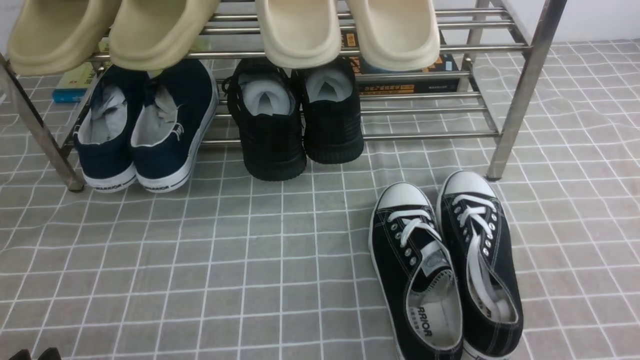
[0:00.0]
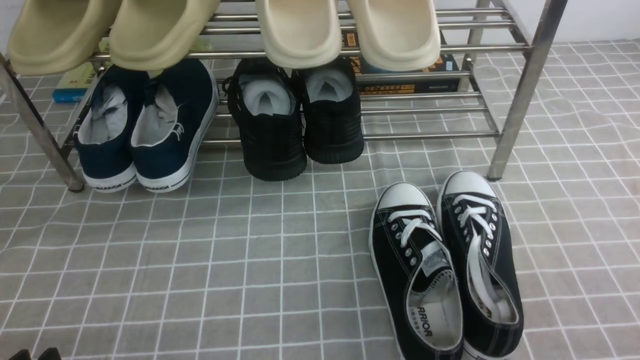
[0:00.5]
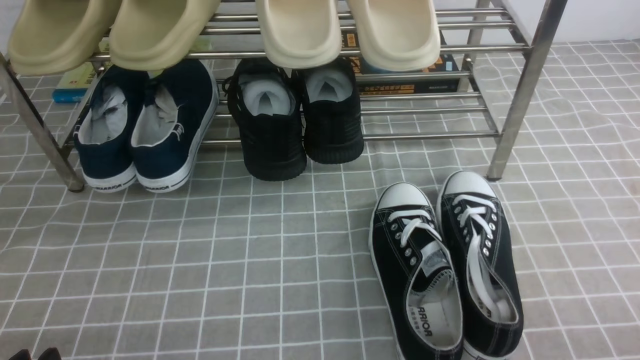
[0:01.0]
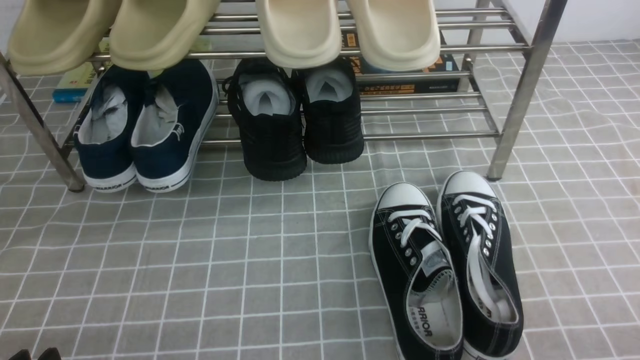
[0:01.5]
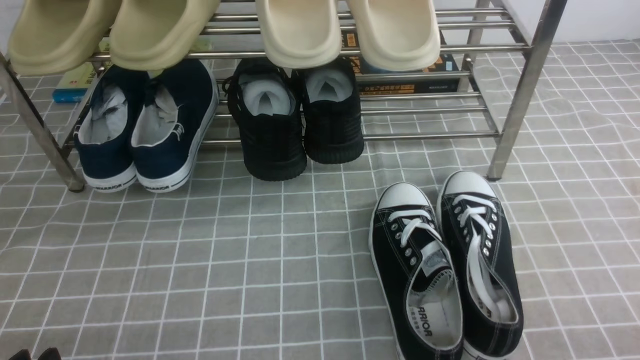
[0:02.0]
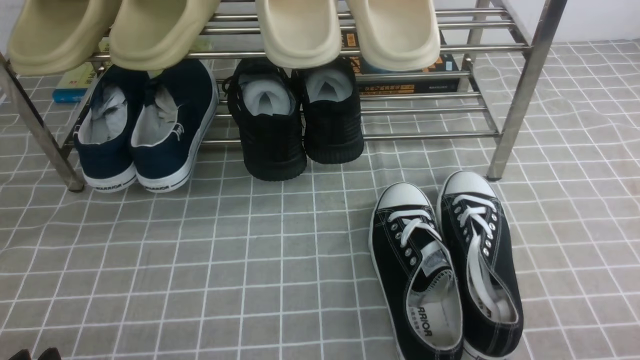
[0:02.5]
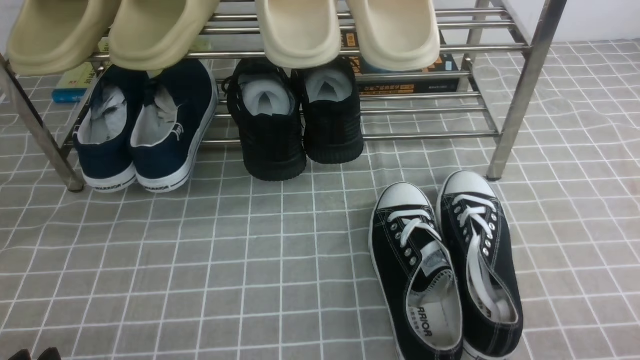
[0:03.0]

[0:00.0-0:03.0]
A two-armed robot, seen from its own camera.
0:01.5 to 0:03.0: Neither gripper changes place.

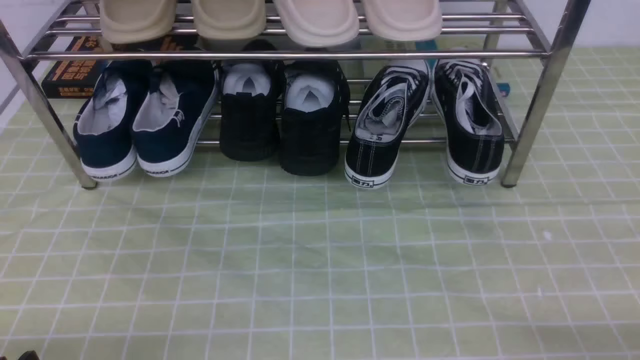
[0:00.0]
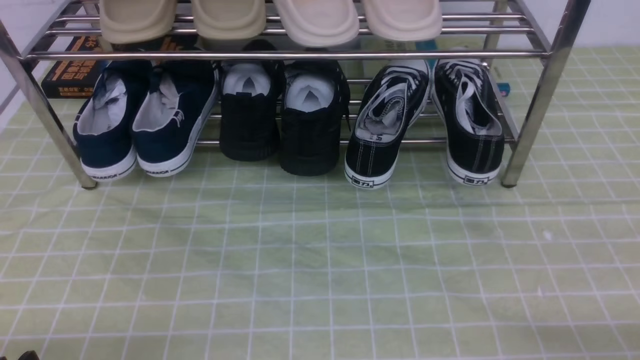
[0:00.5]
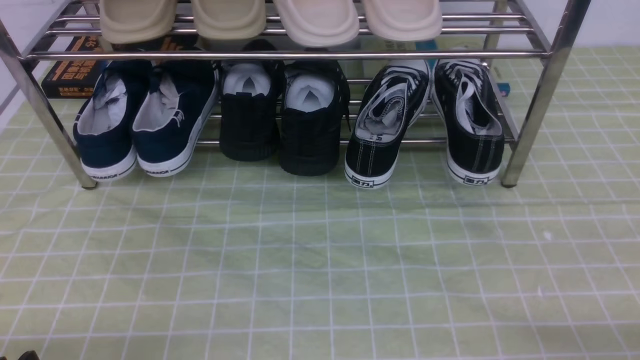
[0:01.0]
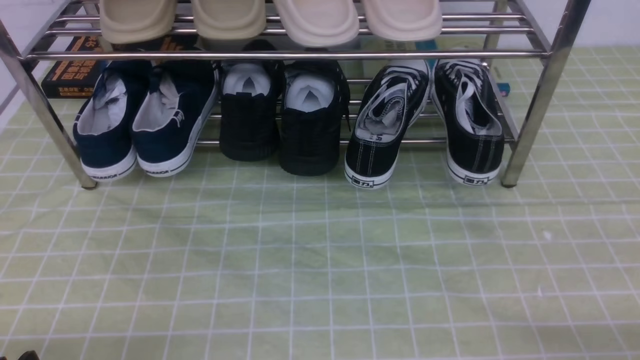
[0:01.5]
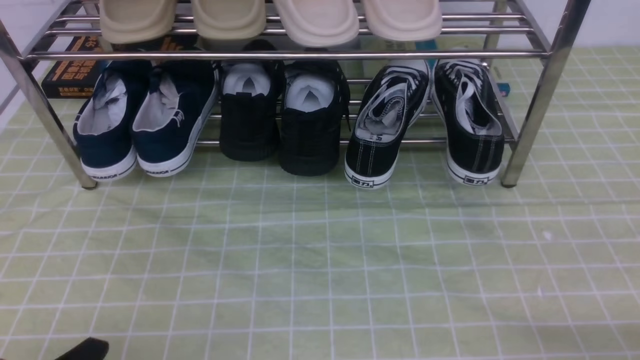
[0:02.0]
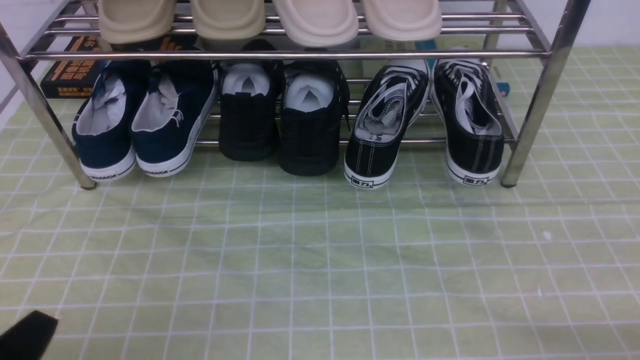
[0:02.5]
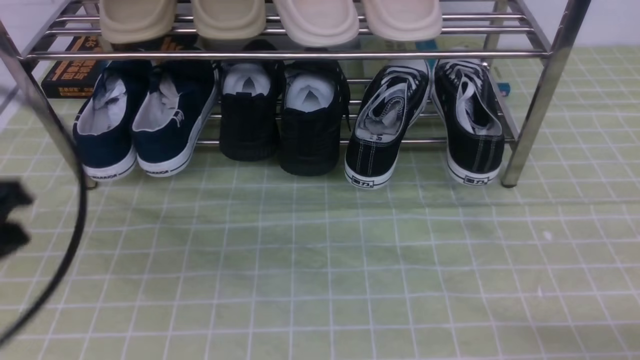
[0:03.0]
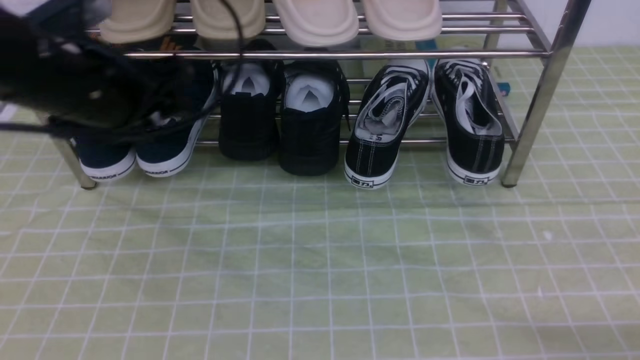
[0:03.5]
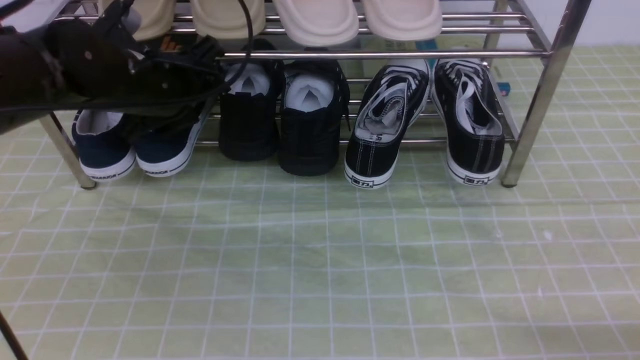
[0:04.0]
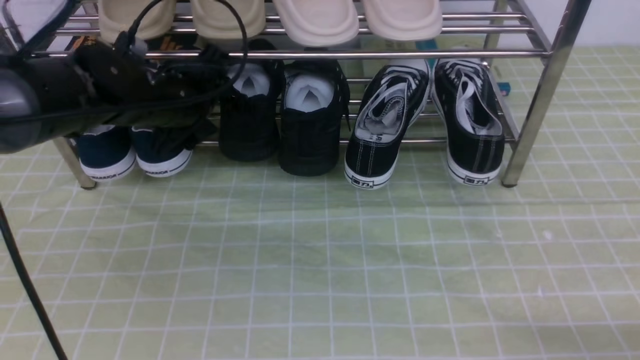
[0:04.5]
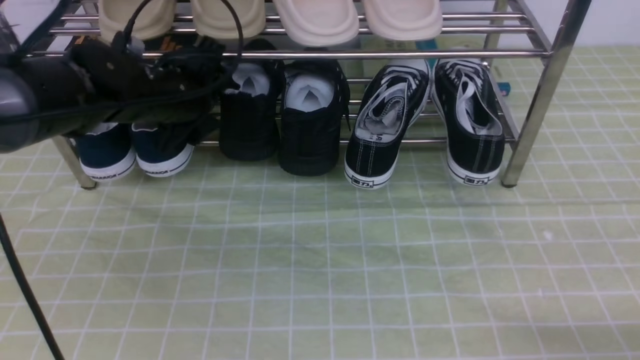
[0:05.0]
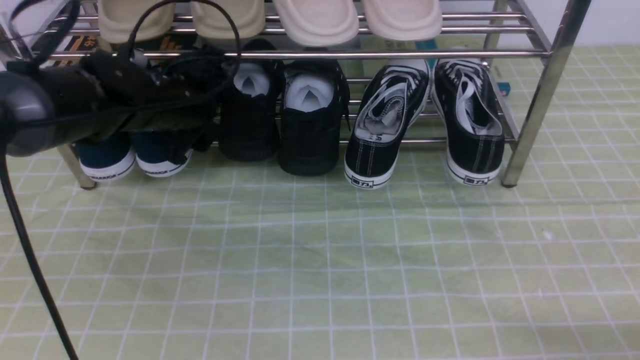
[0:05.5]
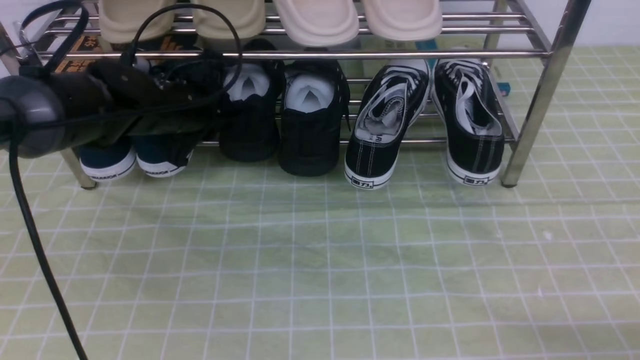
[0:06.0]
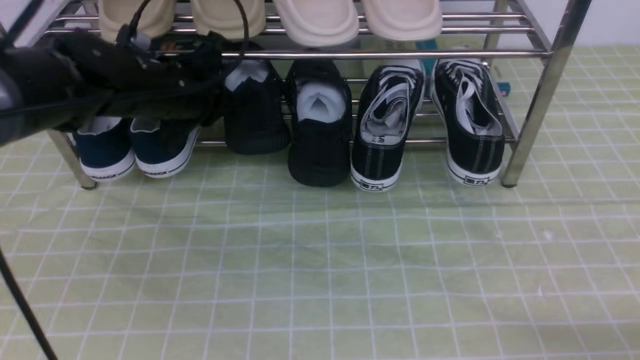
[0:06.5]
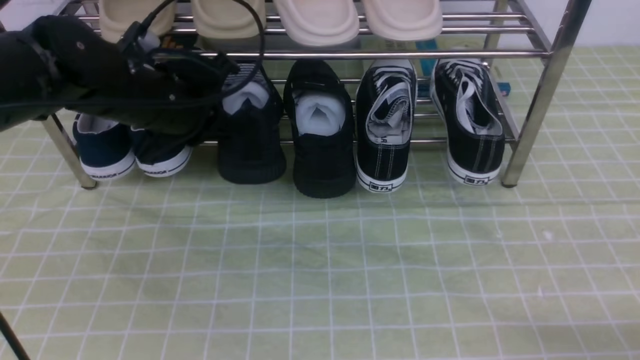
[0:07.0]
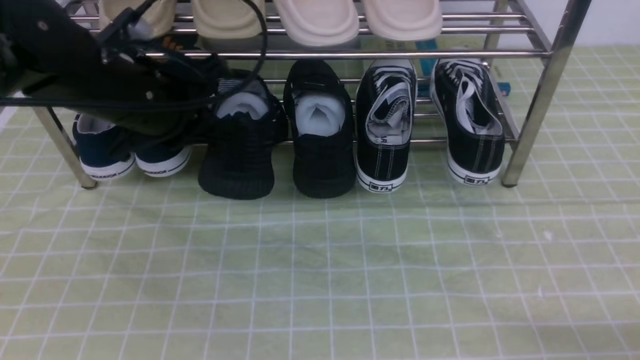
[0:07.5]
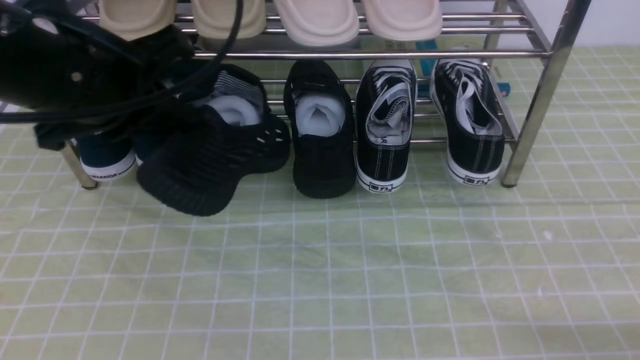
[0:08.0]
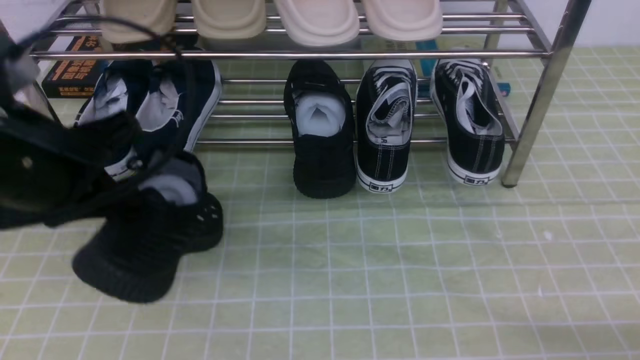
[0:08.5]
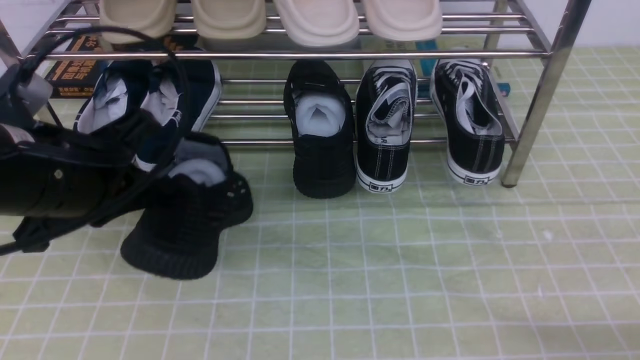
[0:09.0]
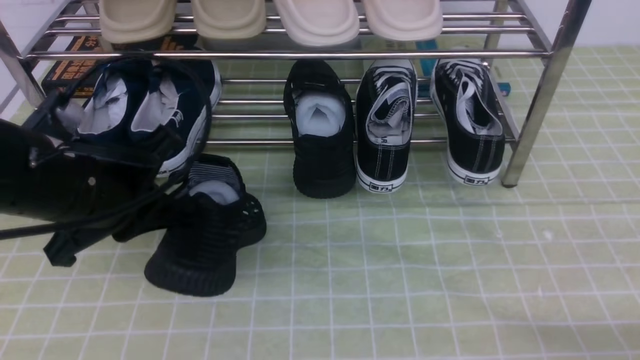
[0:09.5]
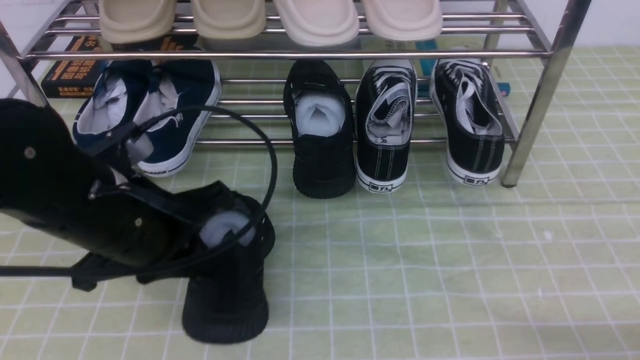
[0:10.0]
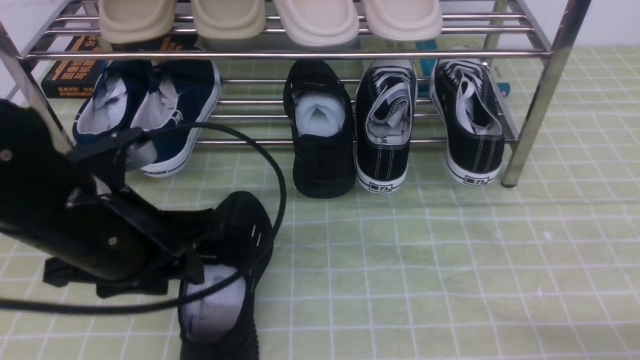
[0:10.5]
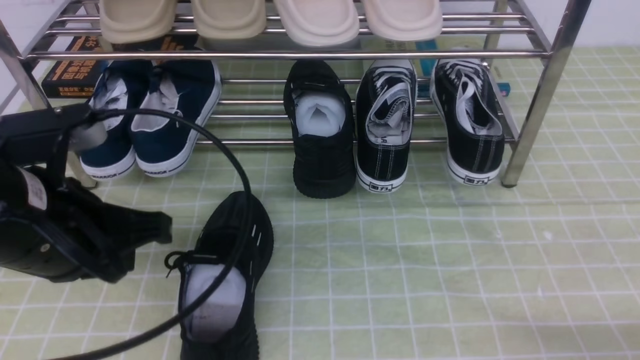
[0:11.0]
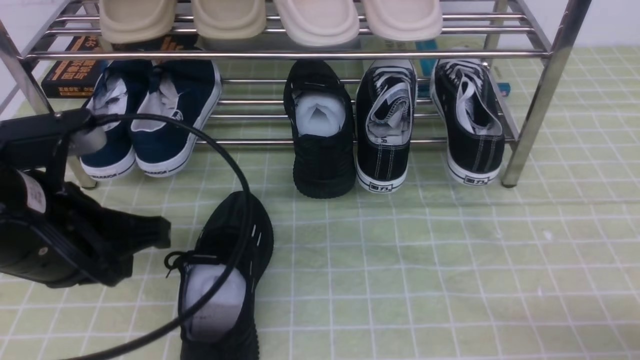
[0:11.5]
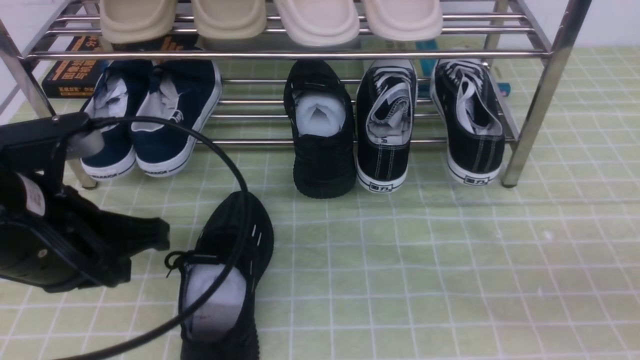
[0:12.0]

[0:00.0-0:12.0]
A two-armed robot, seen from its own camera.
Step, 0:00.0 to 0:06.0: use the left arm to clamp a shoe in the middle of the shoe rack.
0:02.0 to 0:04.0: The left gripper is displaced forward by roughly 30 cm, and opens up.
0:04.0 to 0:06.0: The left gripper moves downward, about 5 cm, and closes its fingers.
0:06.0 to 0:08.0: The left gripper travels backward and upward by roughly 20 cm.
0:08.0 to 0:10.0: The left gripper goes approximately 10 cm downward.
0:10.0 to 0:12.0: The left gripper ends up approximately 5 cm from where it was, while the right gripper goes about 10 cm upward.

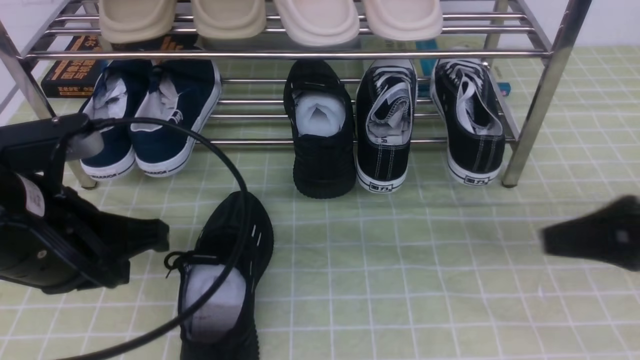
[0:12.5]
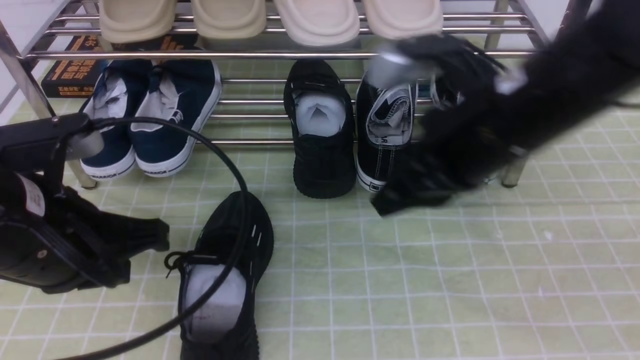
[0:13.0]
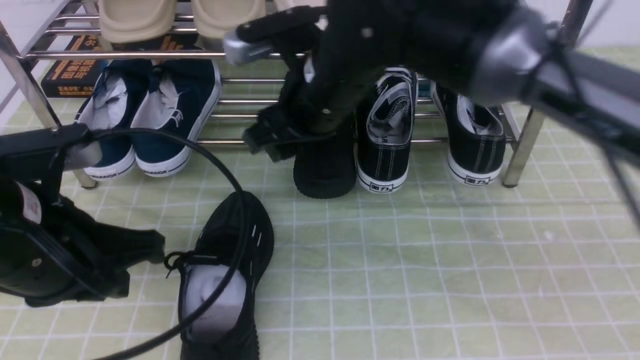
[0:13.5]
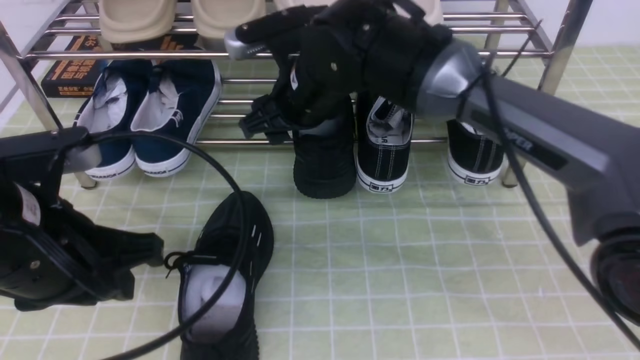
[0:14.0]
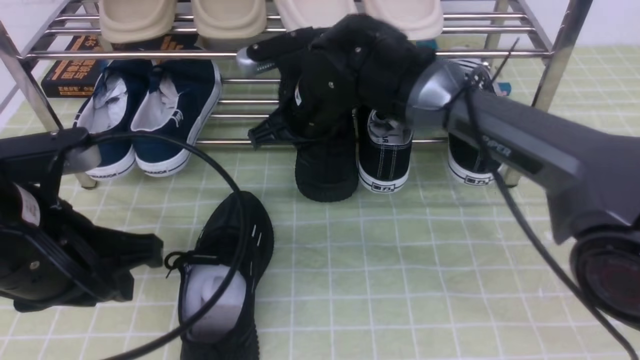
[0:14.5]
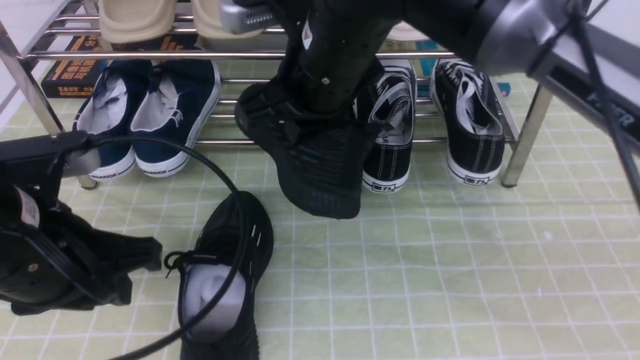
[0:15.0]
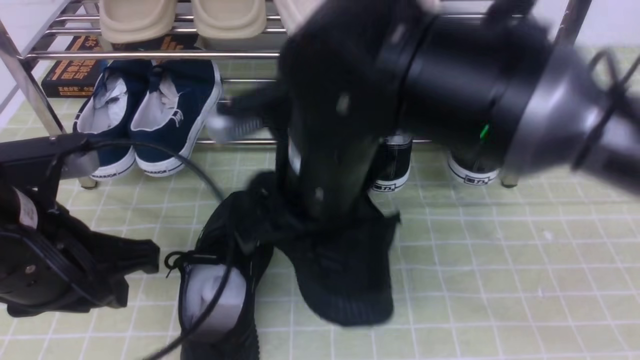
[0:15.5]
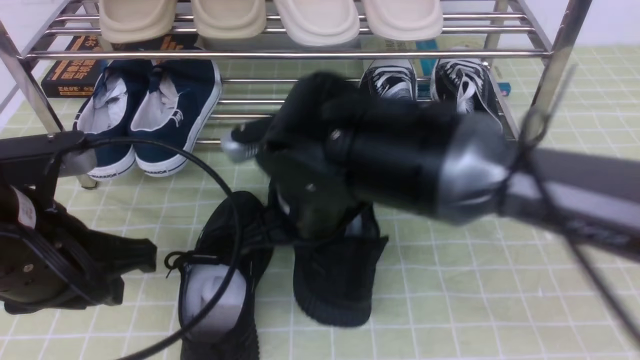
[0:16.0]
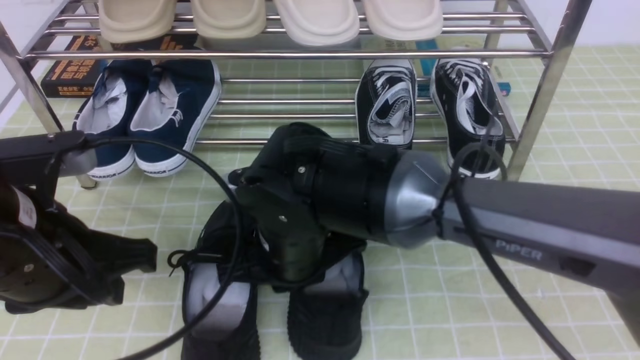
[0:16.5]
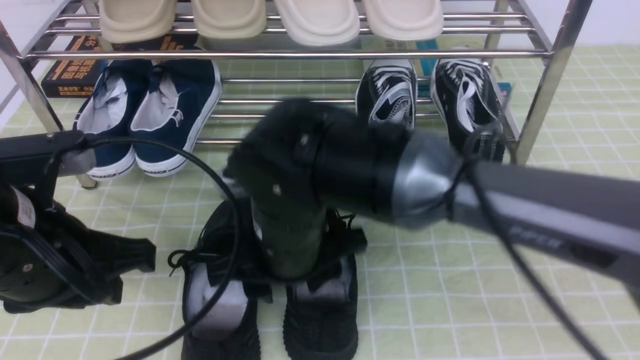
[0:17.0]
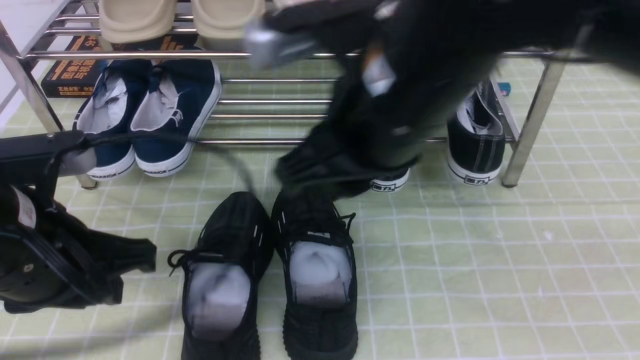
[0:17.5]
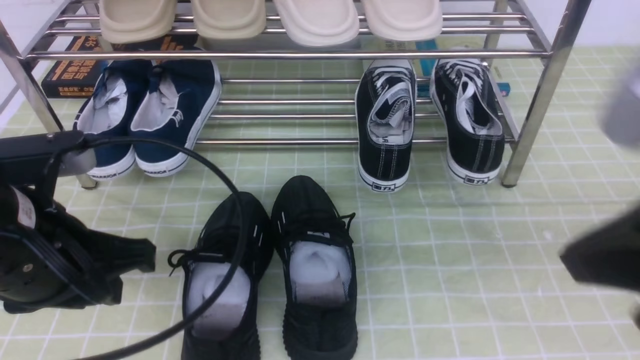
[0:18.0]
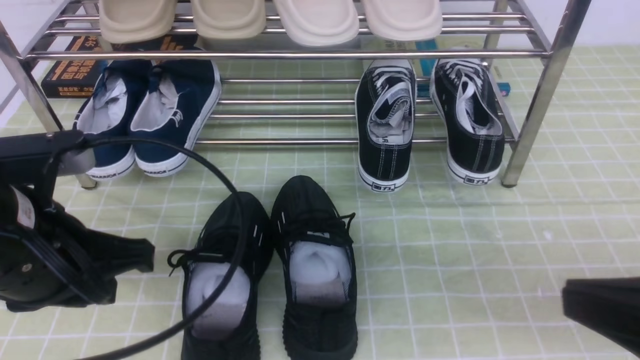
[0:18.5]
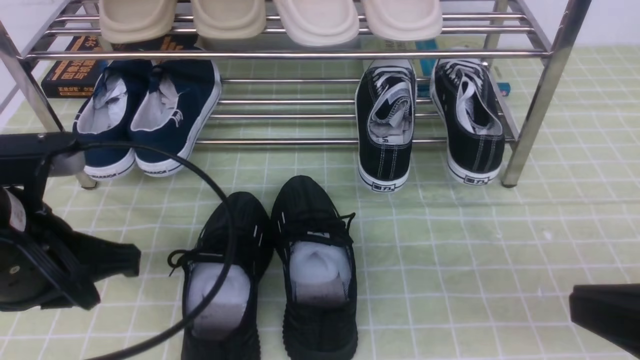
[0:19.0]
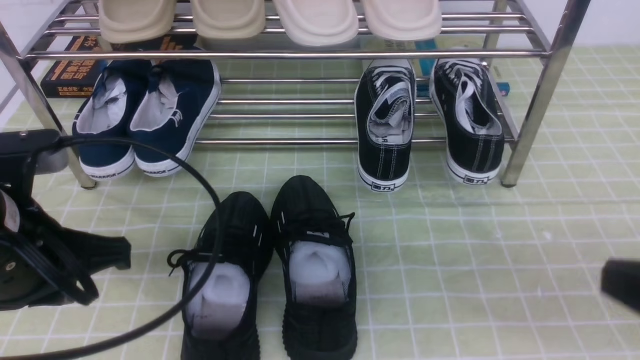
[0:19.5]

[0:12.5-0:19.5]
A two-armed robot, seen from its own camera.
Step, 0:12.5 to 0:14.5: use the right arm to clamp a shoe in the middle of the shoe rack.
Step, 0:15.0 to 0:17.0: use the right arm to take out the clamped shoe from the shoe rack and put it down.
0:12.5 to 0:14.5: The left gripper opens up. The right gripper travels to the left and forward by approximately 35 cm, and opens, then closes once more.
0:14.5 to 0:16.0: The right gripper is displaced backward by roughly 15 cm.
0:16.0 to 0:17.5: The right gripper shifts approximately 15 cm upward and to the right, and opens.
0:17.5 to 0:19.5: The left gripper closes its fingers. Meanwhile the right gripper shifts roughly 25 cm to the right, backward and downward, and closes up.
